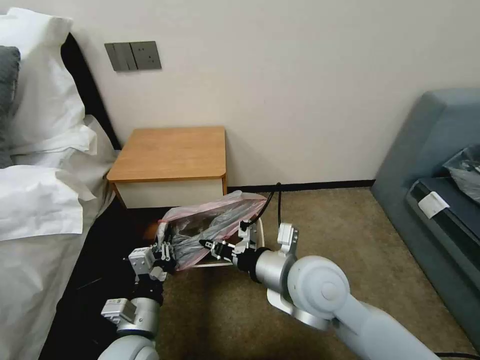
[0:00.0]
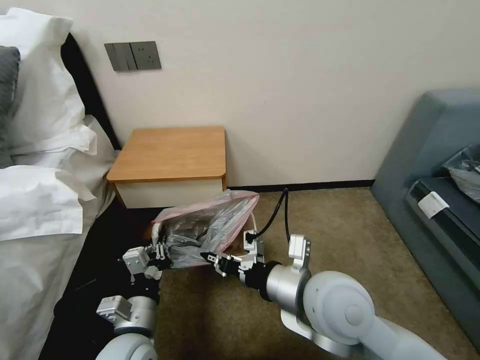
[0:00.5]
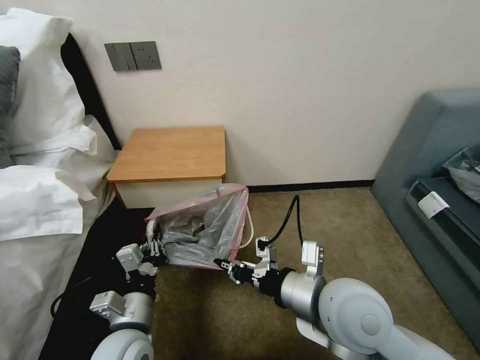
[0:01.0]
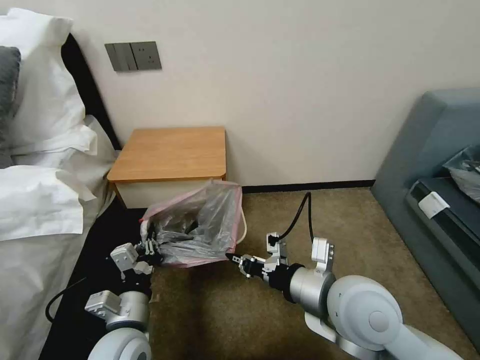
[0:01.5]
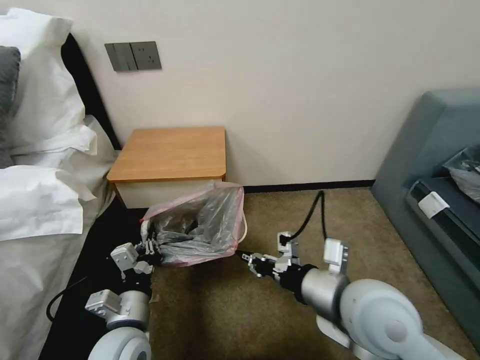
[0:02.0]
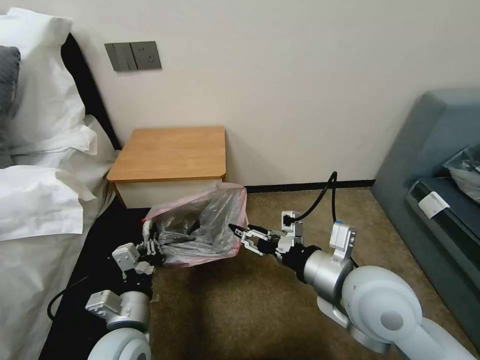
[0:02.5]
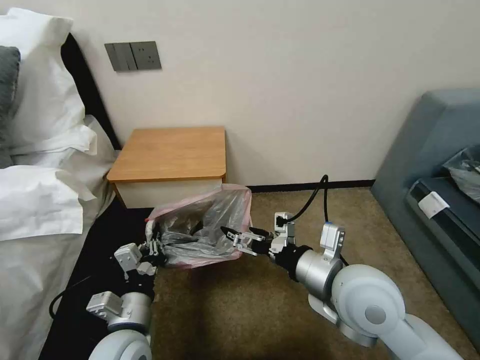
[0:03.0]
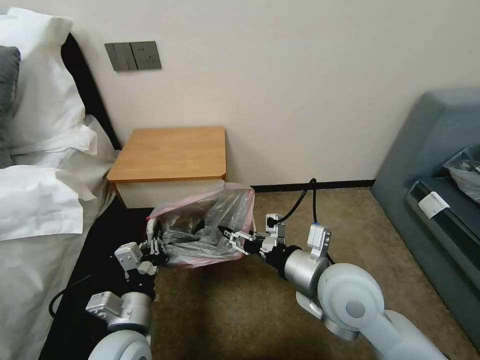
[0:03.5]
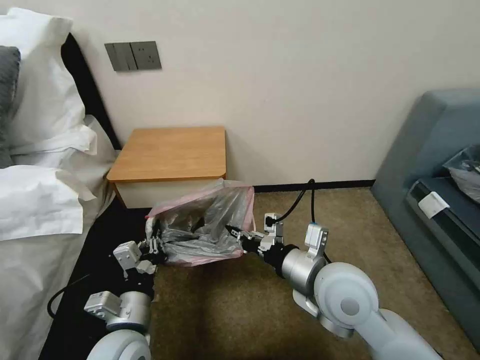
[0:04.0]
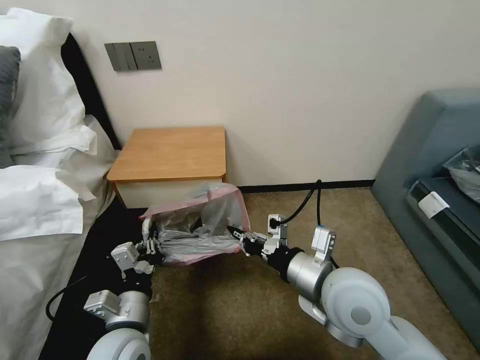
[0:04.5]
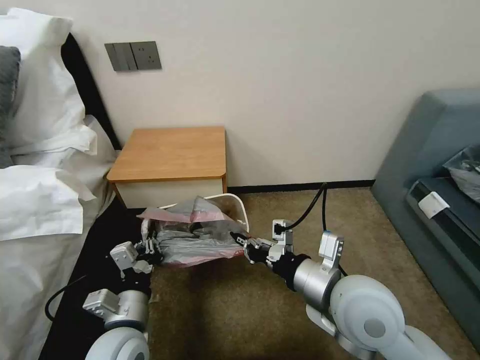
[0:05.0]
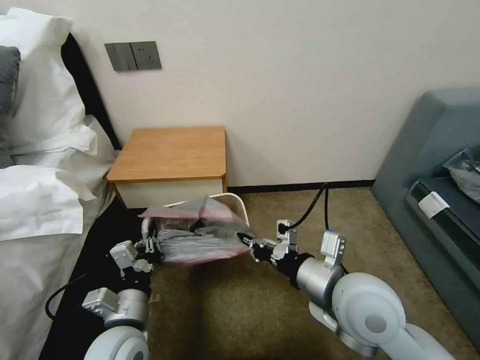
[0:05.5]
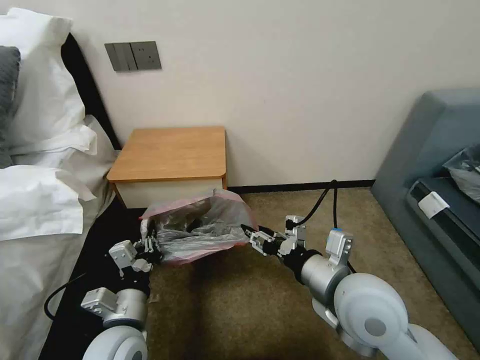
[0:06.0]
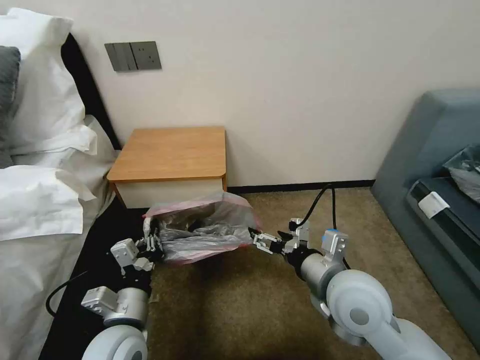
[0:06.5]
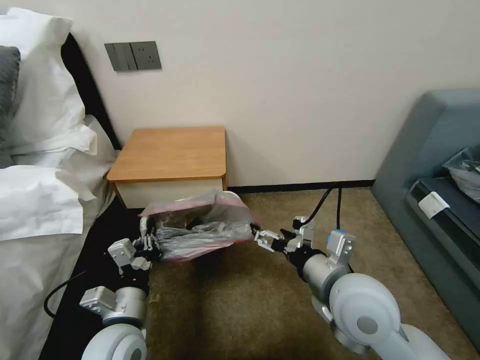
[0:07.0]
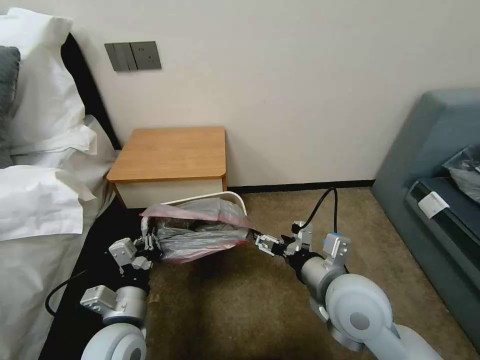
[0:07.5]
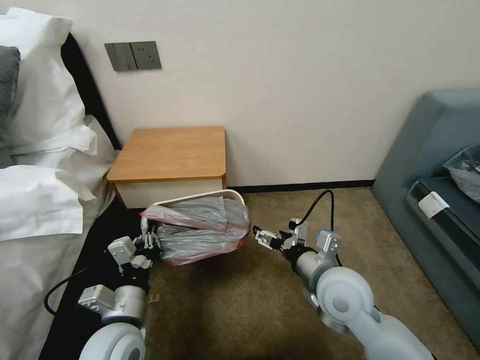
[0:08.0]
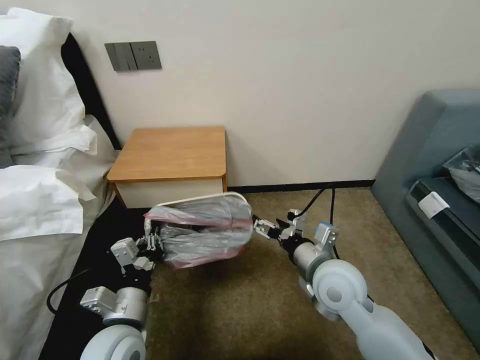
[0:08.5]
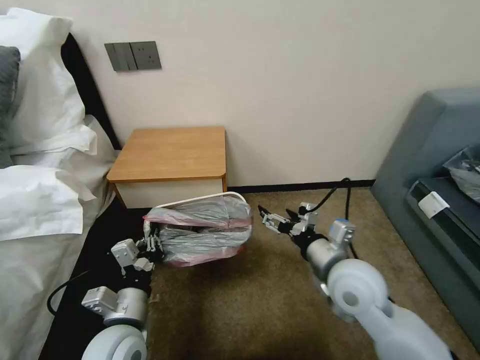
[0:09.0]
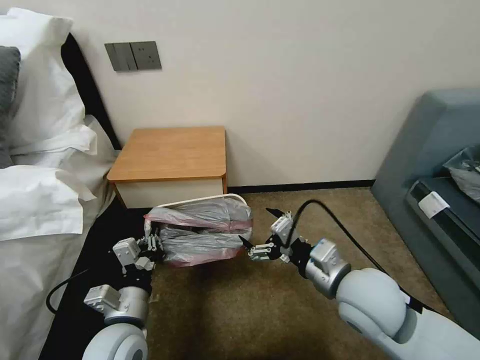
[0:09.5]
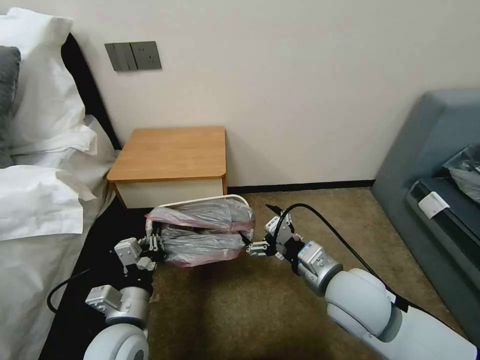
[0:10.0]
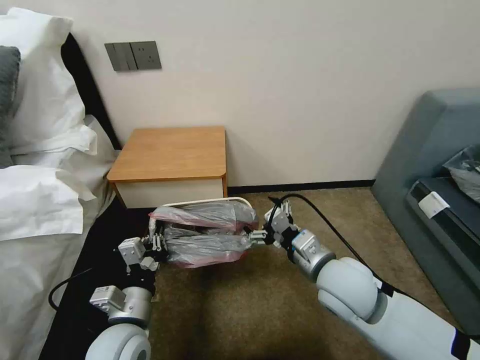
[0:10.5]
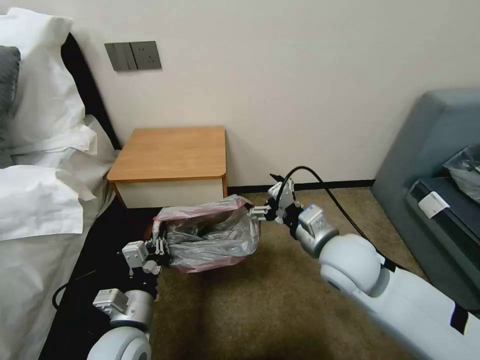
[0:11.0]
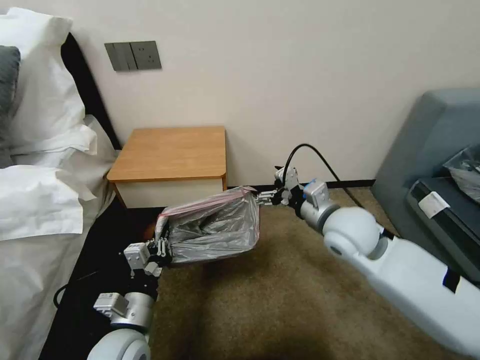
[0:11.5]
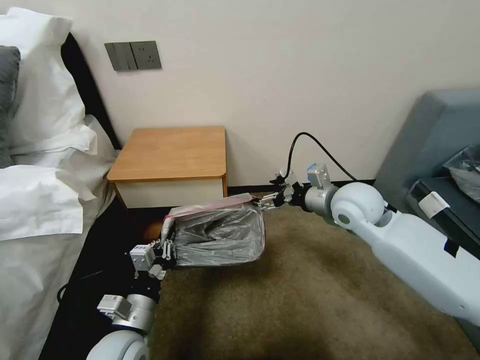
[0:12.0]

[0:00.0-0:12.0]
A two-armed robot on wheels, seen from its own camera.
Task of the whole recording: Pick up the garbage bag from the table and place it over the trash can.
0:00.0 to 0:02.0: The right gripper travels to the right and backward by about 10 cm.
0:02.0 to 0:04.0: The right gripper moves roughly 5 cm, and opens and closes again.
0:04.0 to 0:06.0: The right gripper opens.
0:06.0 to 0:08.0: The right gripper heads downward, covering some 5 cm, and opens its fingers.
0:10.0 to 0:12.0: The right gripper heads forward, covering roughly 15 cm.

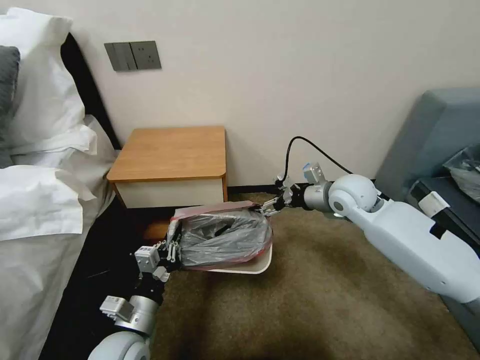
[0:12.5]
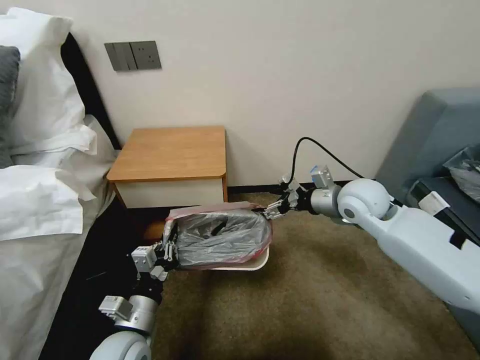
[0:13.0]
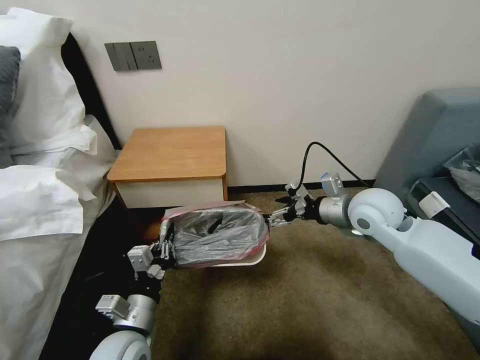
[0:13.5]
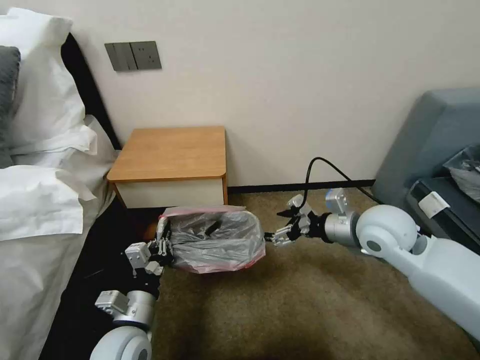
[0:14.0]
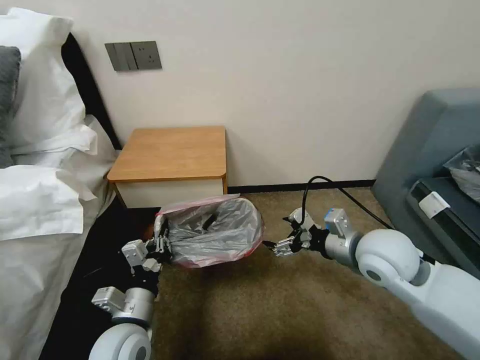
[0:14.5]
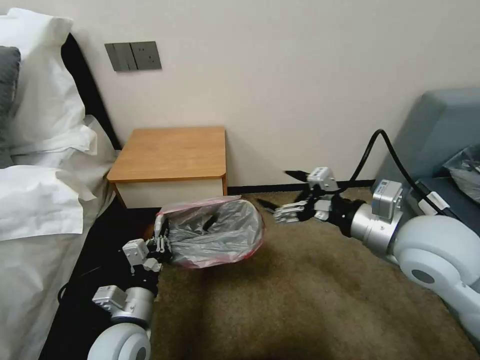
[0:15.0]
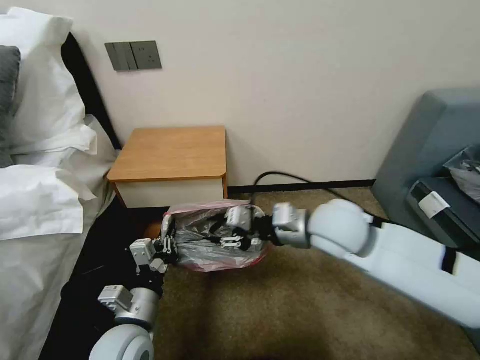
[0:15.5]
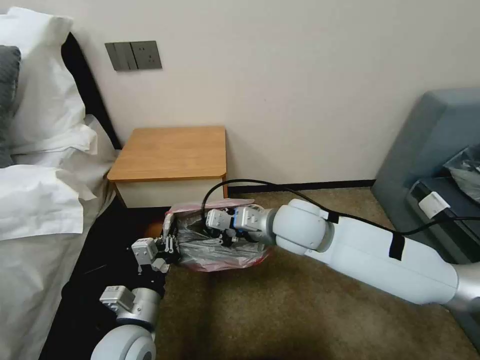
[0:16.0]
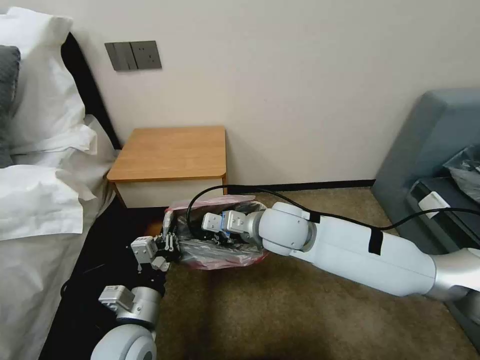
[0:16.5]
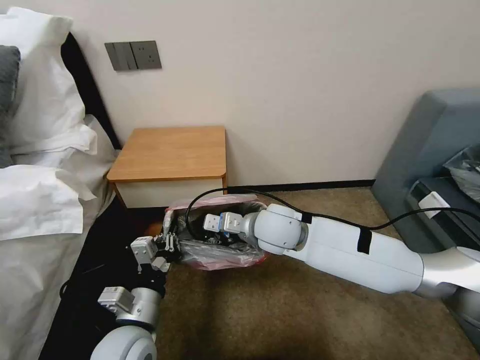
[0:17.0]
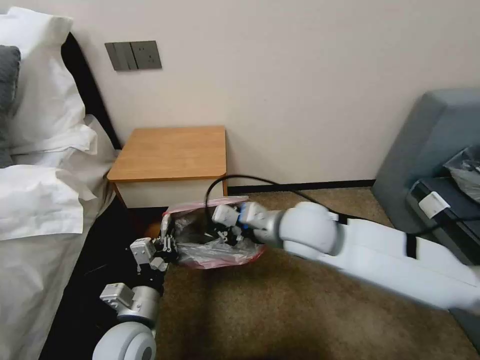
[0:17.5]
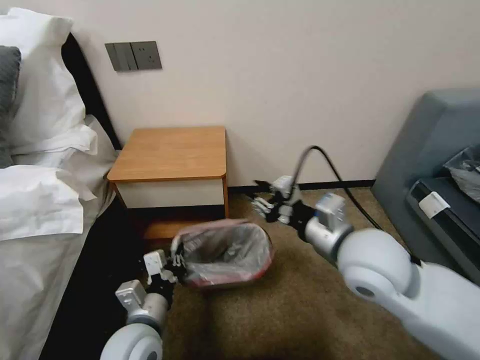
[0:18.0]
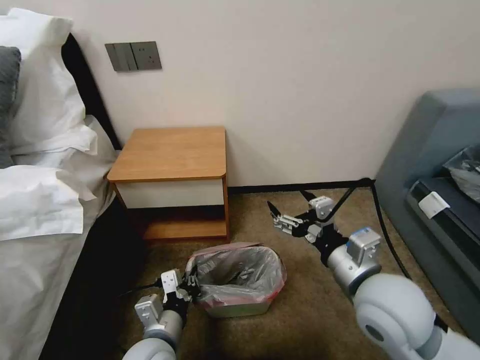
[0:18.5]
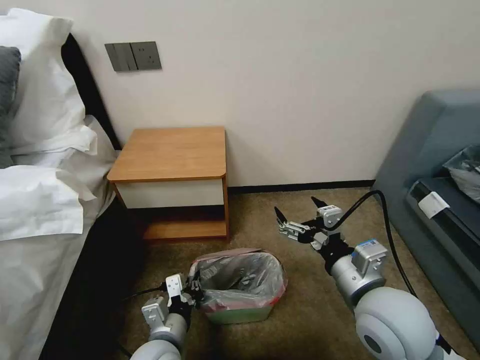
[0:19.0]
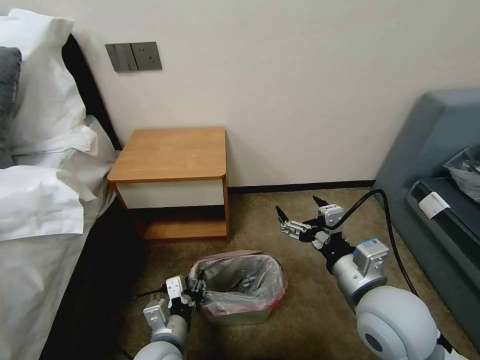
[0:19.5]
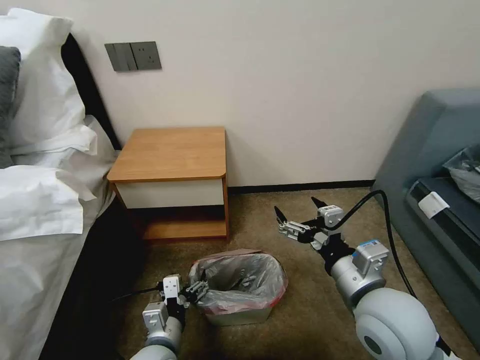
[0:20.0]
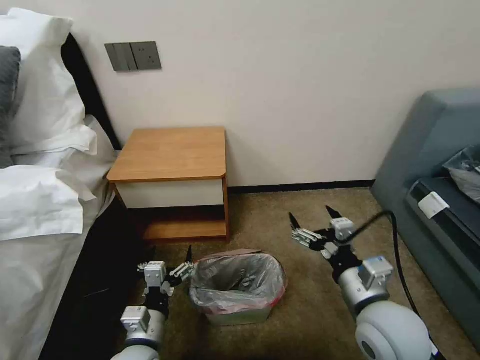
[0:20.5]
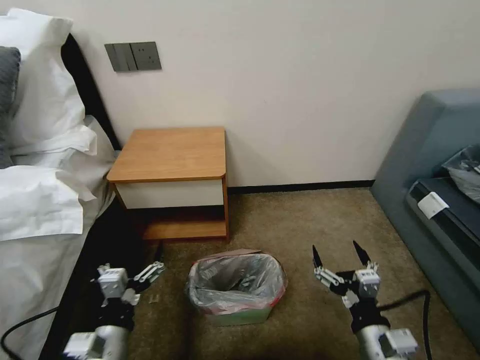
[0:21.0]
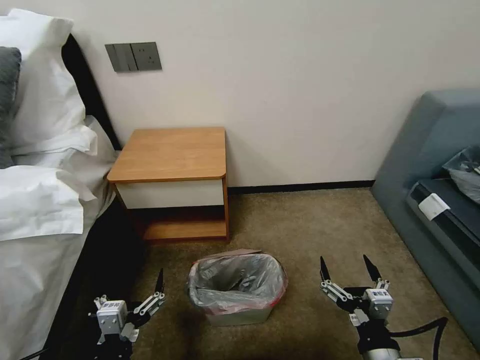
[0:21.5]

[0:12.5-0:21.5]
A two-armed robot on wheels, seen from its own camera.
Task of the whole recording: Pick up the garbage bag from the table and place it over the trash can.
0:12.5 to 0:14.5: The right gripper travels backward by about 15 cm.
0:14.5 to 0:17.0: The right gripper moves to the left, approximately 20 cm, and closes up.
0:17.0 to 0:19.5: The left gripper travels downward by approximately 5 cm, and opens up; the right gripper heads backward and to the right, covering roughly 25 cm, and opens its fingers.
0:19.5 to 0:21.5: The right gripper is displaced downward and backward by some 15 cm. The left gripper moves backward and to the left, about 10 cm, and opens.
